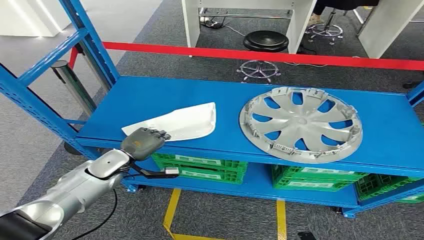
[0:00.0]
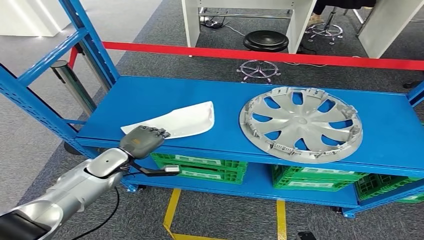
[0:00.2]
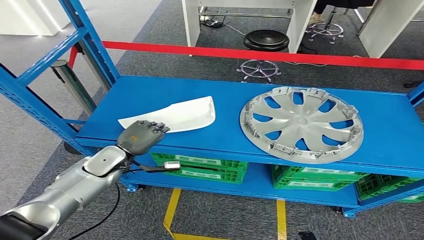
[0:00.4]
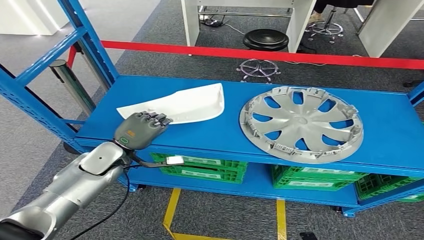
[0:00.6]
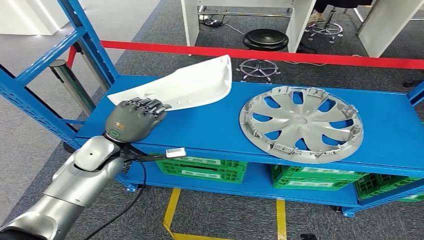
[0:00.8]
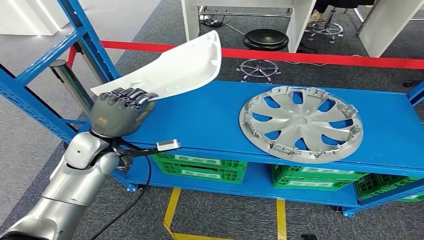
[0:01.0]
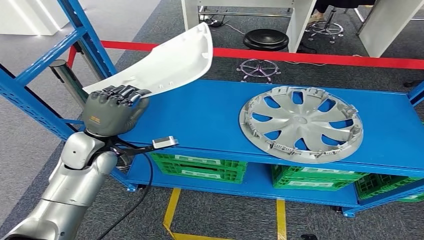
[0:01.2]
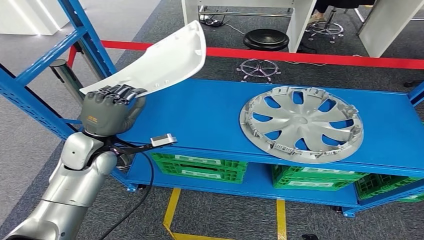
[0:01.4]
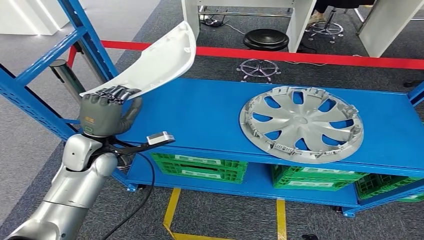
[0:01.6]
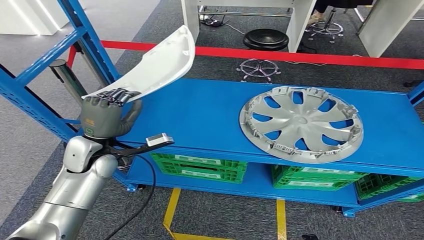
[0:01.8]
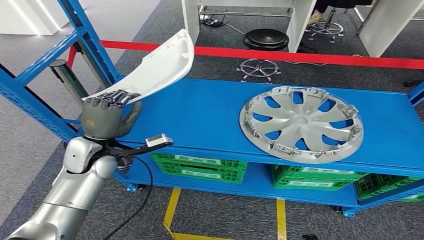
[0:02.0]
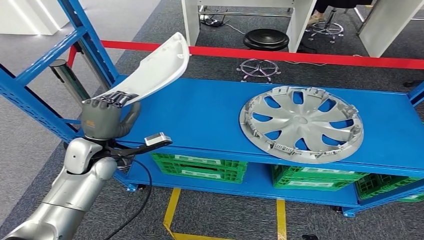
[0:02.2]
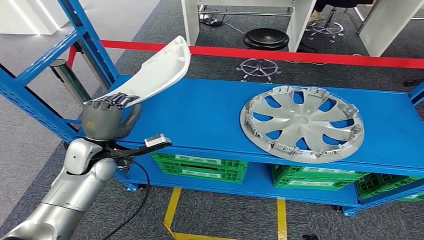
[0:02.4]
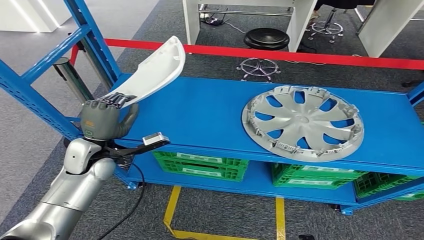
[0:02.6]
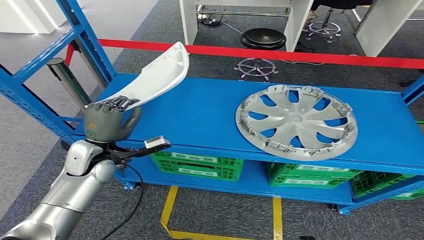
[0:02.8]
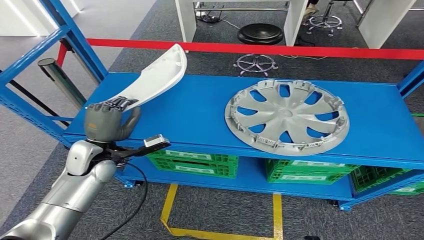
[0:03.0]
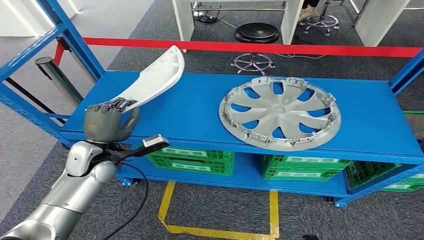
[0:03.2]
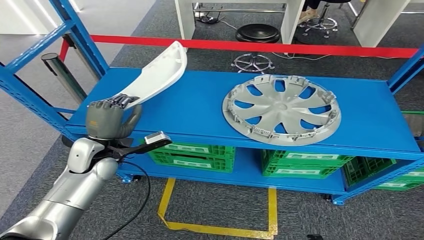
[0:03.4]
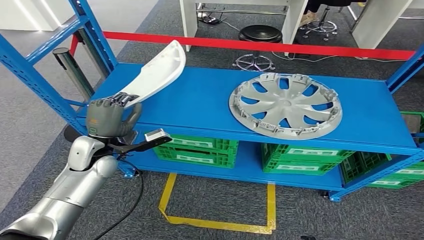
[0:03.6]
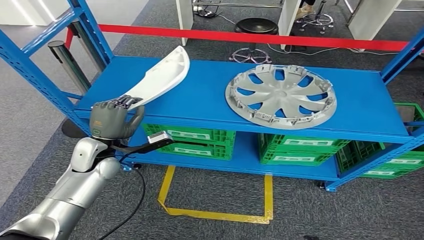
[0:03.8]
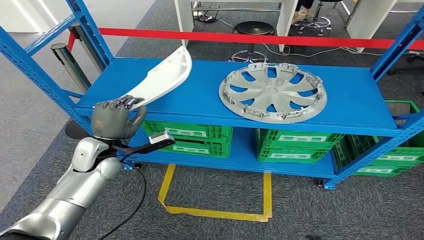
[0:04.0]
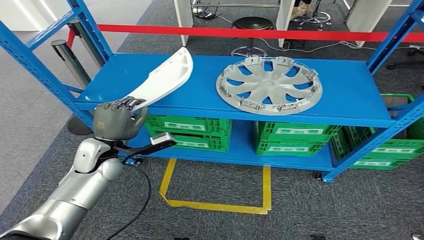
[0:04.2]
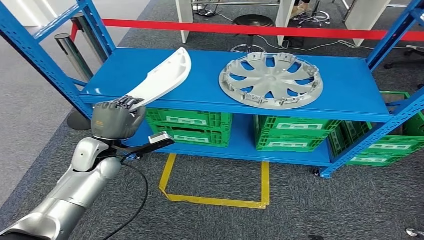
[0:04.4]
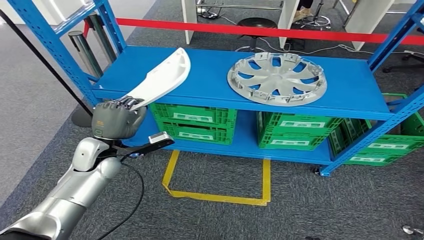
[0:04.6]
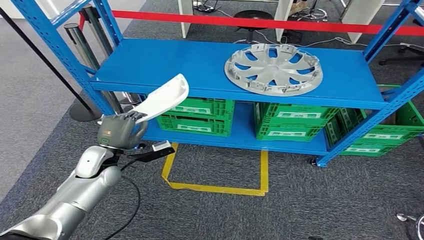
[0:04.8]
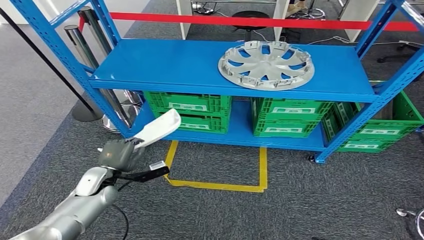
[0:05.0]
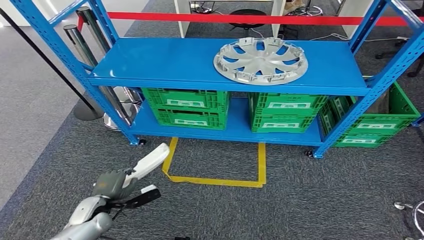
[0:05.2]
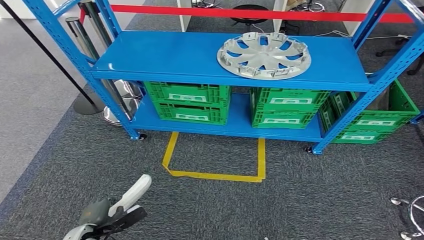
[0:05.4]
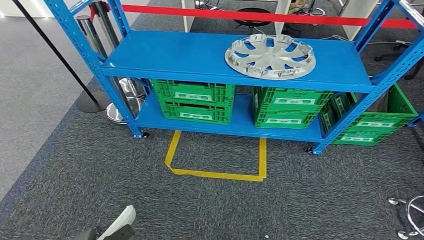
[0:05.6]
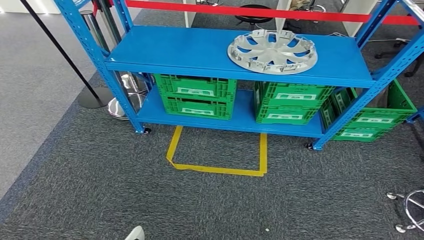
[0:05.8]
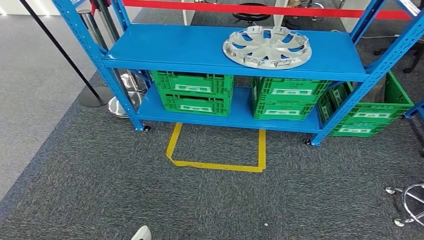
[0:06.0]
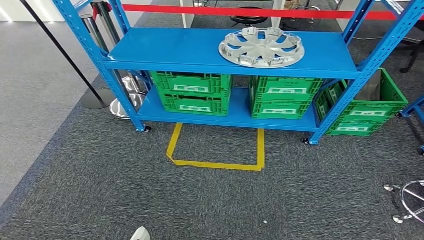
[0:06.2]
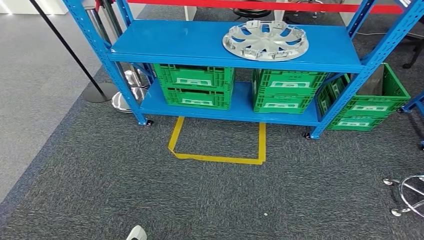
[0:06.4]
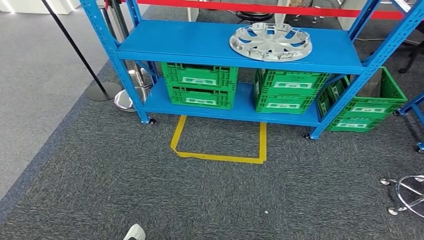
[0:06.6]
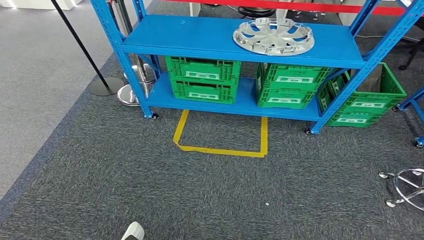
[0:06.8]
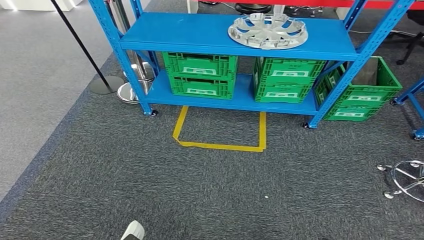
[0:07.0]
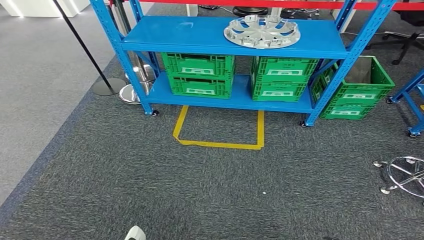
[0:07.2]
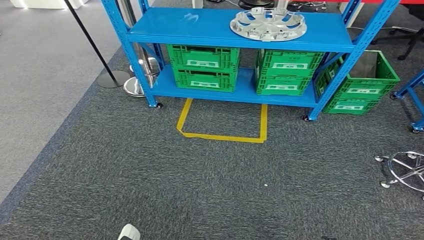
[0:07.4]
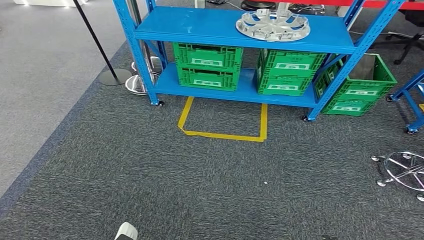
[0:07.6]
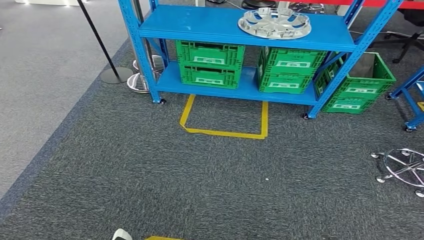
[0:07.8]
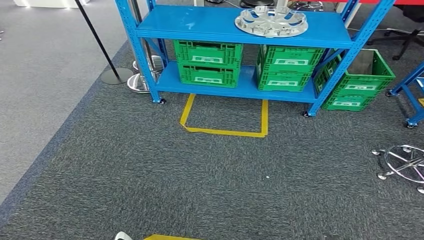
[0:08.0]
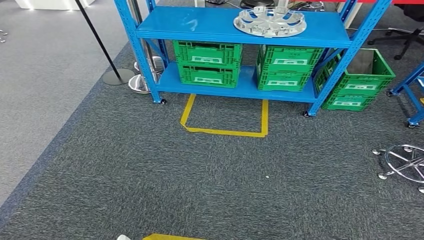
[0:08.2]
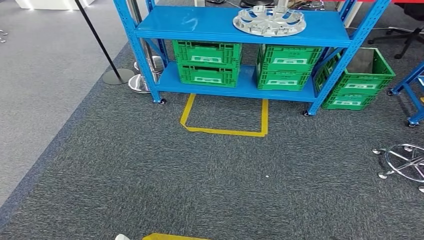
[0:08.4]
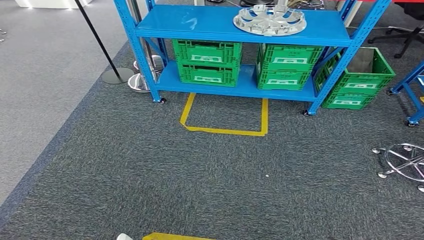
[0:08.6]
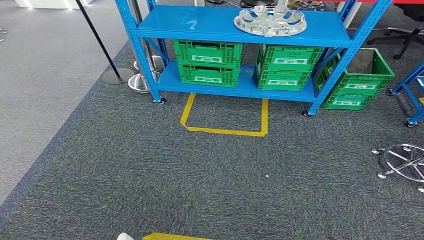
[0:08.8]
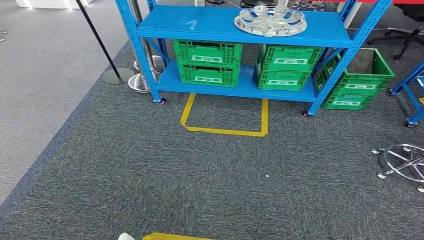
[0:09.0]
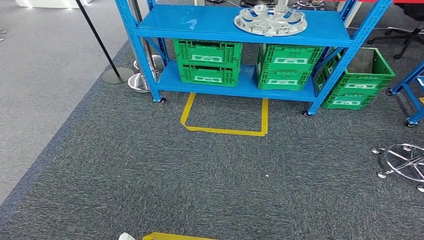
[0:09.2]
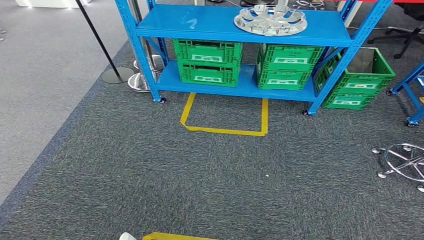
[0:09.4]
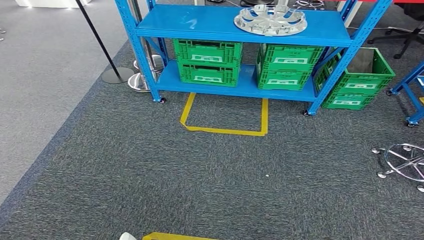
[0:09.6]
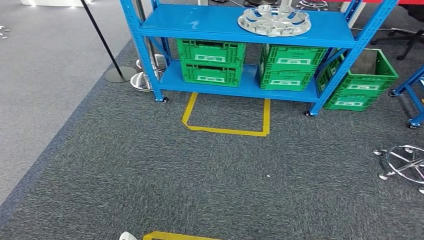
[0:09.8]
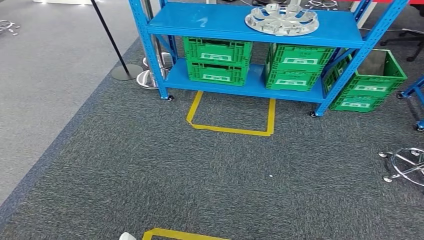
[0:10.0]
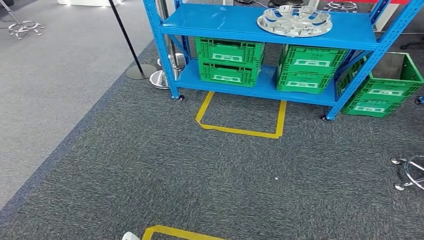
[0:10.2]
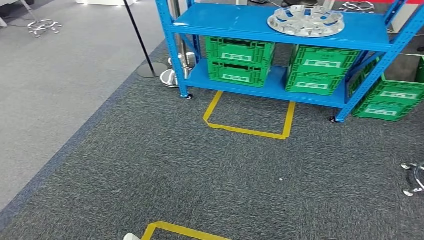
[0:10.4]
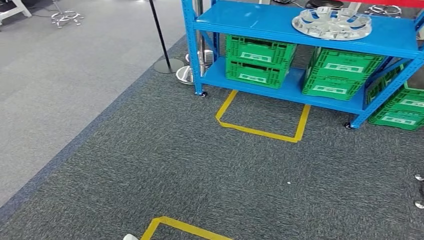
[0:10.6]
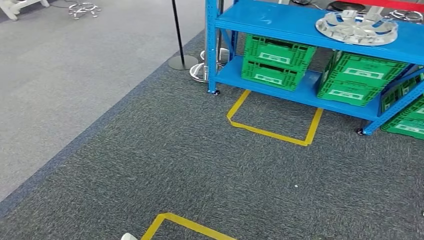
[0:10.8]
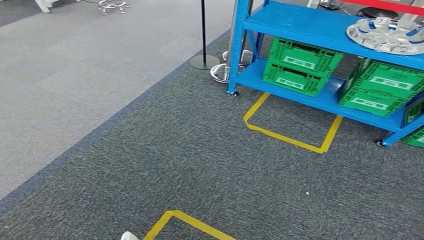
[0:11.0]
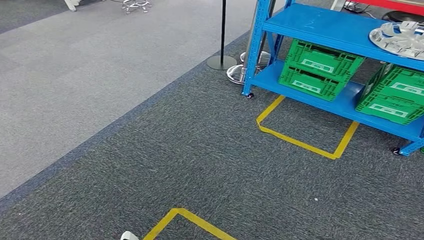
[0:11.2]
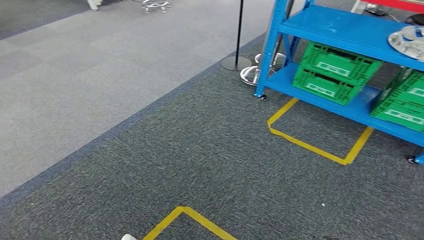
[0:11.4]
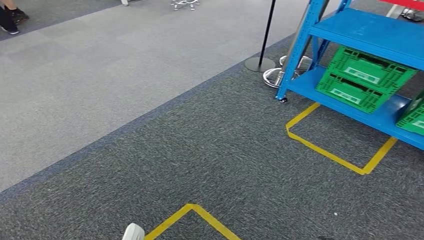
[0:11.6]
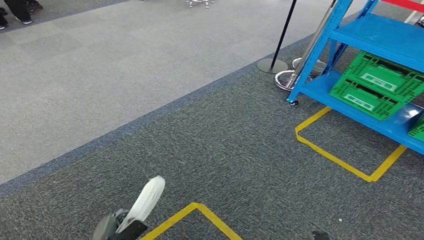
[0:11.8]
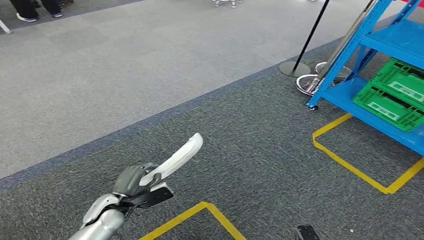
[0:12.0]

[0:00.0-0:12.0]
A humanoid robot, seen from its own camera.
Step, 0:00.0 to 0:04.8: Pick up the small component from the shelf.
0:07.6 to 0:09.0: The hands make only small movements.

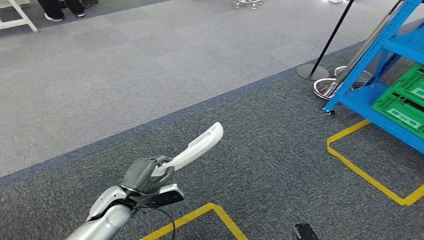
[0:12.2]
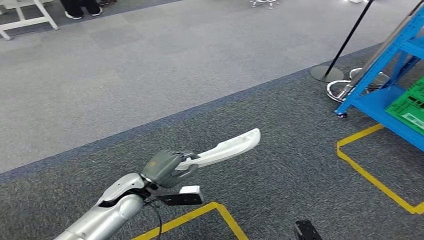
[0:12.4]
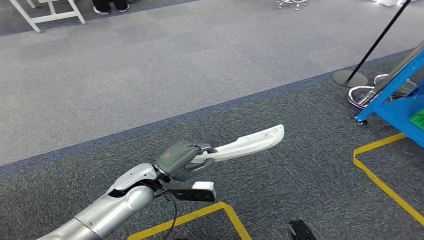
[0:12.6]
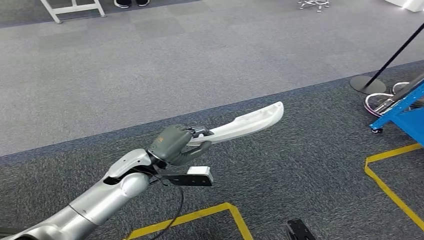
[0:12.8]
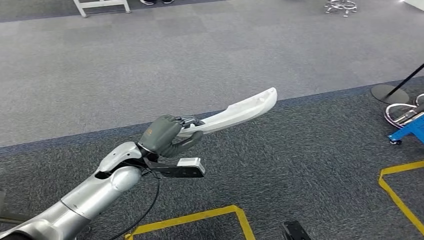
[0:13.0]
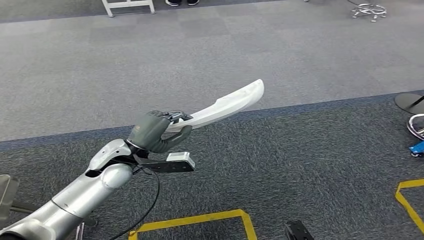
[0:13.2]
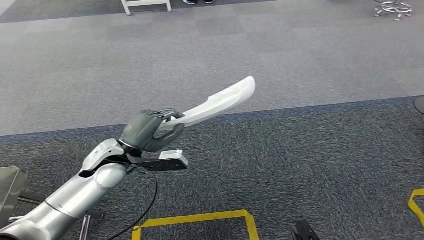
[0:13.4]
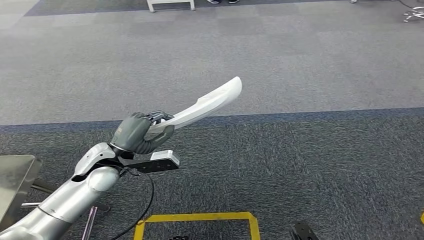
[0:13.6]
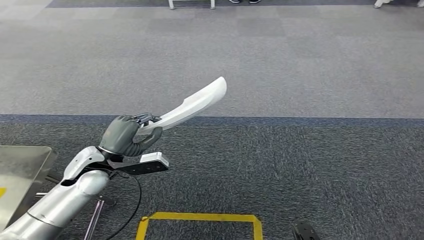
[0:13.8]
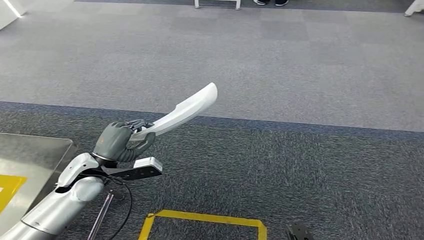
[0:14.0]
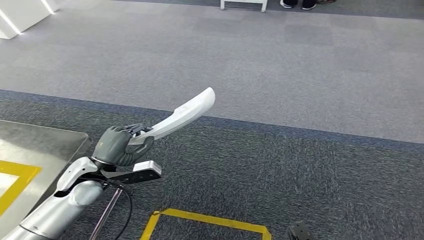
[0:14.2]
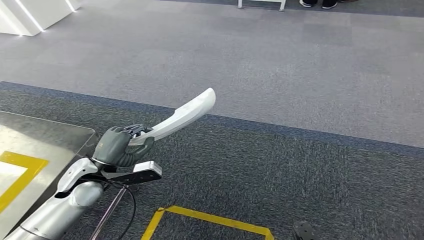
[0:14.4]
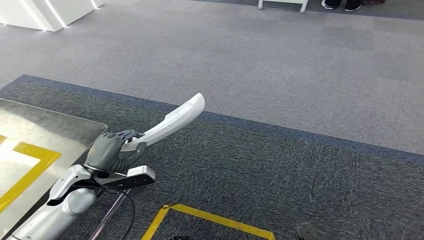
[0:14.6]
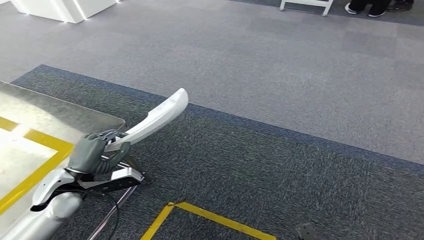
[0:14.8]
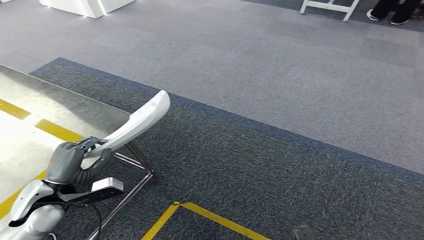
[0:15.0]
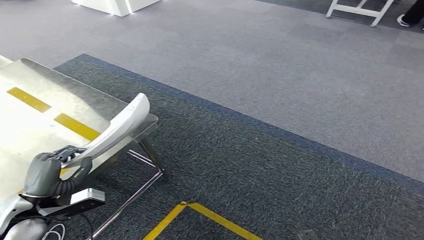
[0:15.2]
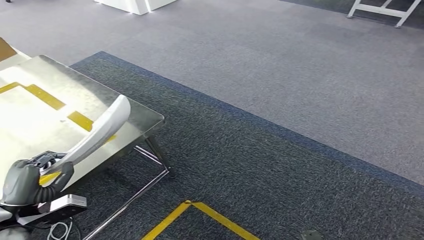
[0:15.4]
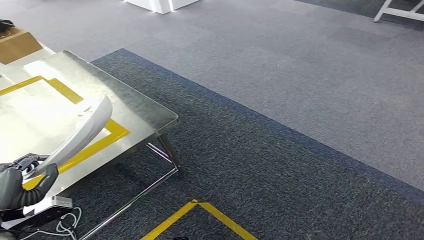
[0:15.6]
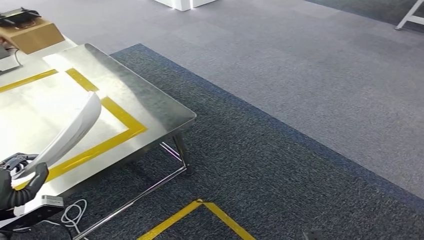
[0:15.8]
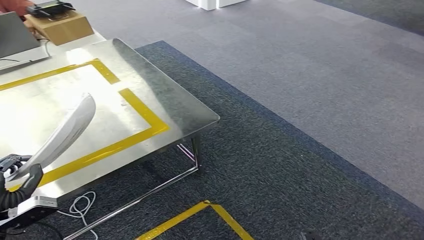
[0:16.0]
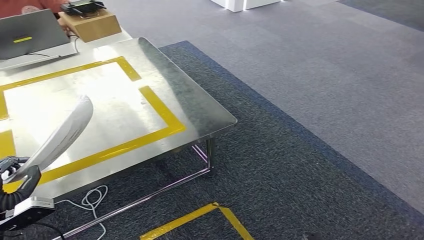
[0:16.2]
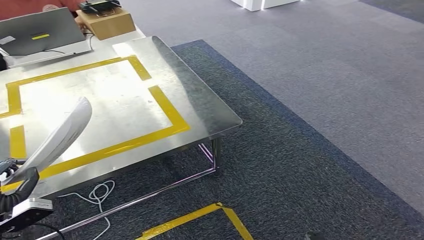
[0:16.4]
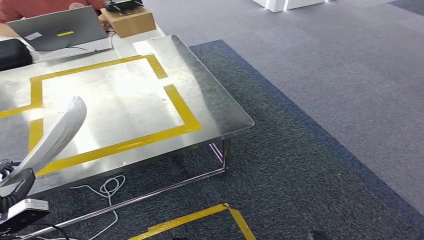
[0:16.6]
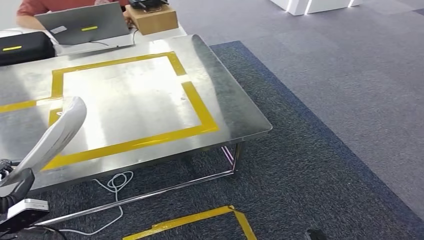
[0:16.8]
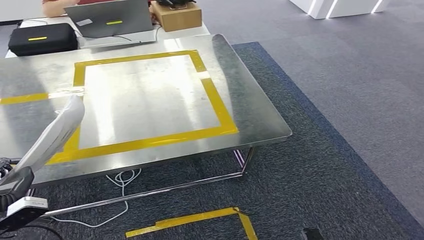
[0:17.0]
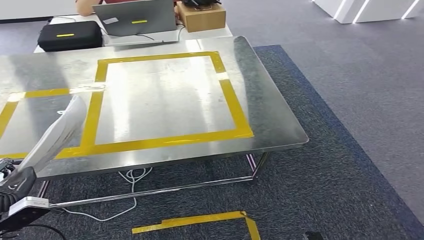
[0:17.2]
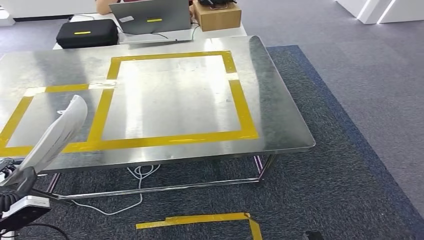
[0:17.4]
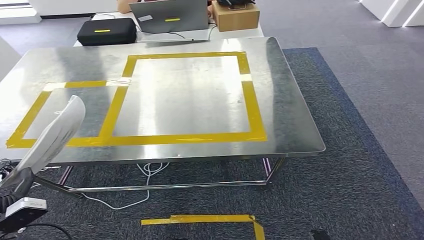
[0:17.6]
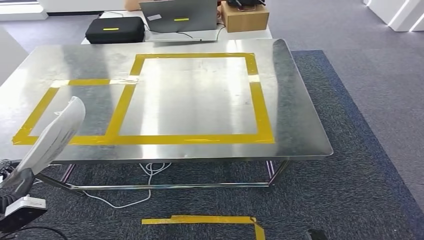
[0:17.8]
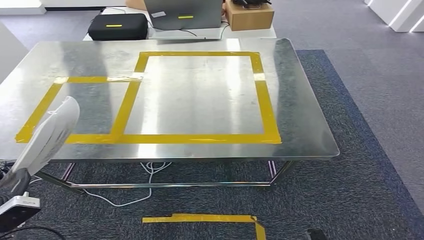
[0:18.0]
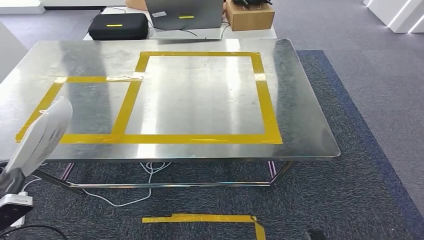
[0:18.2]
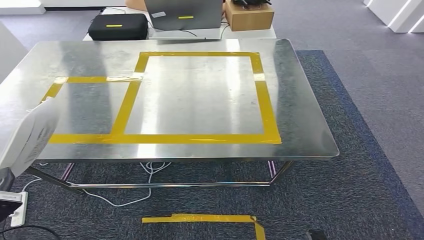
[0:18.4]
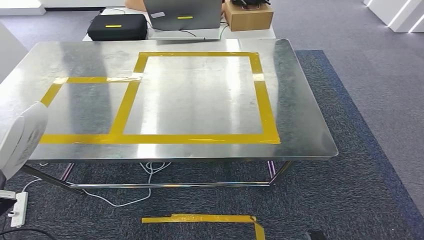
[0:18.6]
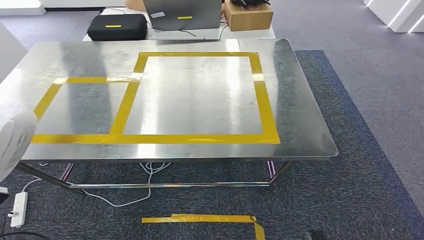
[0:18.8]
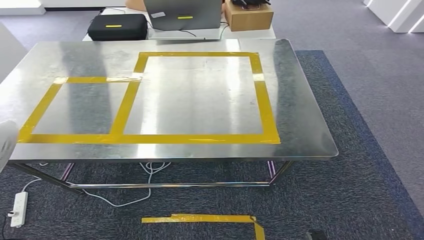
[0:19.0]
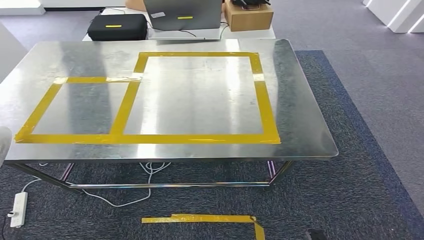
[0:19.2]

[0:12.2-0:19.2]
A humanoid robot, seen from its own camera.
Step, 0:12.2 to 0:17.8: Bring the small component to the front of the workbench.
0:17.8 to 0:19.2: The left hand is displaced to the left by some 10 cm.
